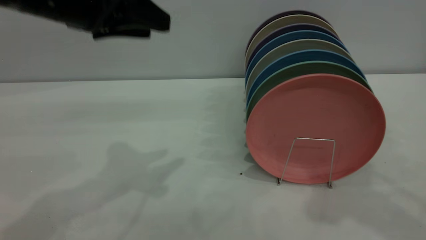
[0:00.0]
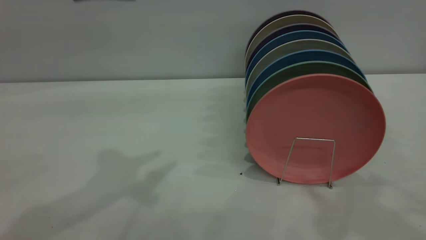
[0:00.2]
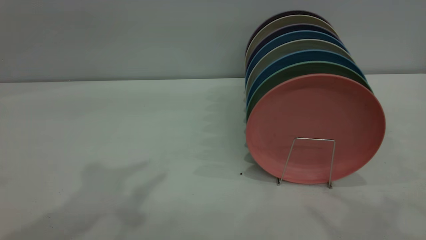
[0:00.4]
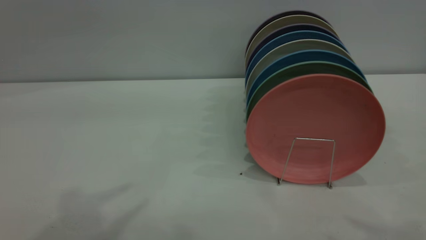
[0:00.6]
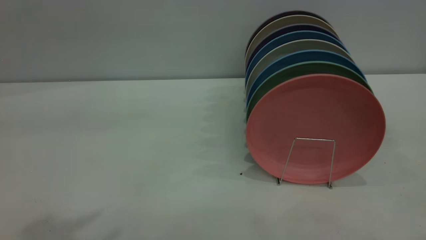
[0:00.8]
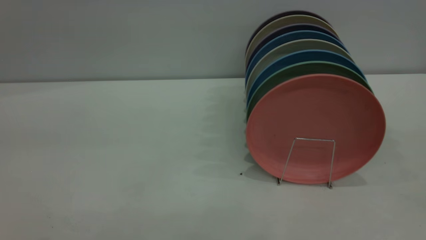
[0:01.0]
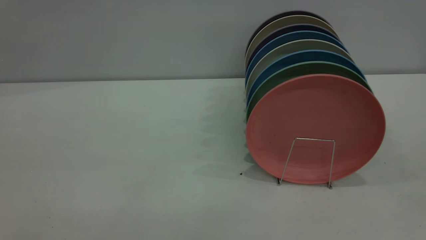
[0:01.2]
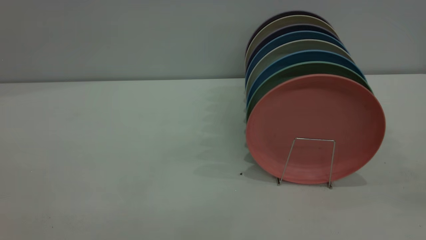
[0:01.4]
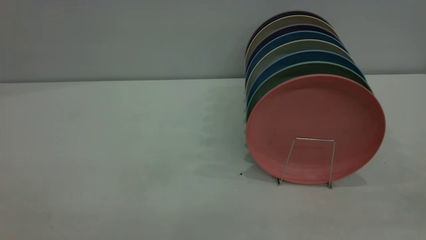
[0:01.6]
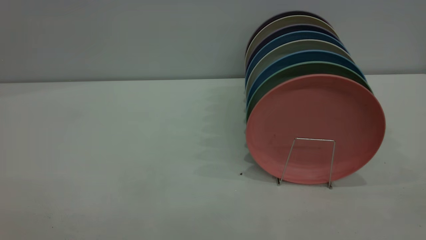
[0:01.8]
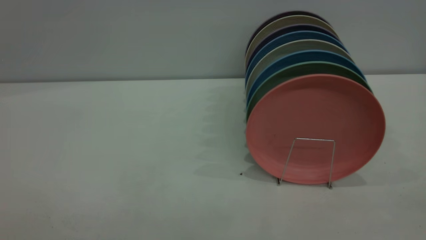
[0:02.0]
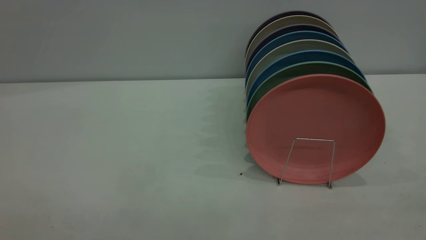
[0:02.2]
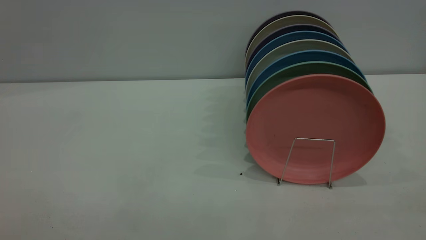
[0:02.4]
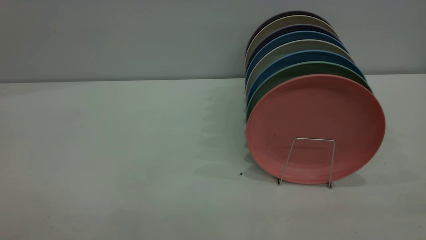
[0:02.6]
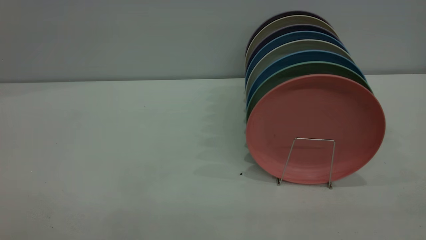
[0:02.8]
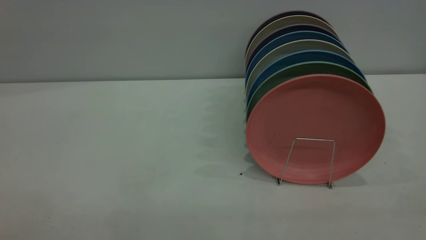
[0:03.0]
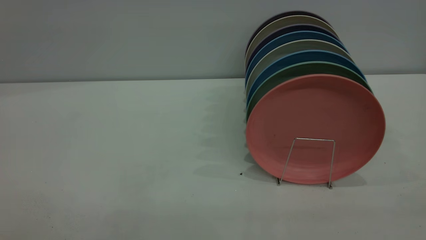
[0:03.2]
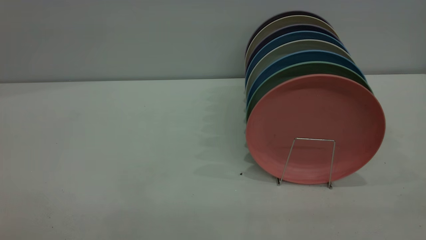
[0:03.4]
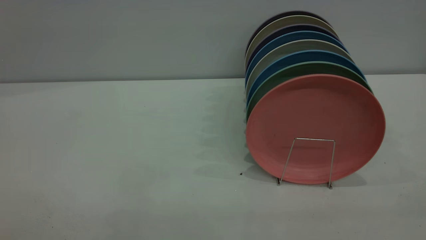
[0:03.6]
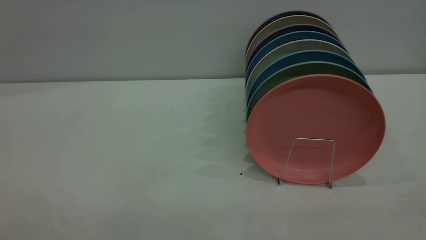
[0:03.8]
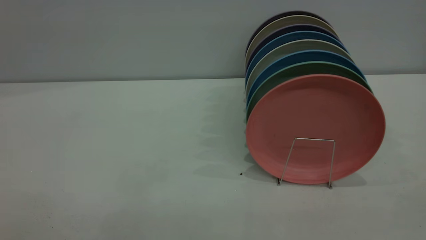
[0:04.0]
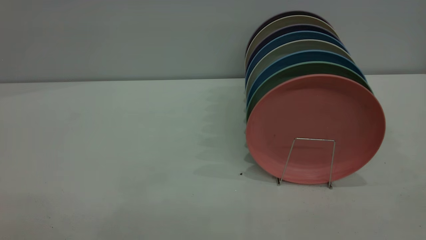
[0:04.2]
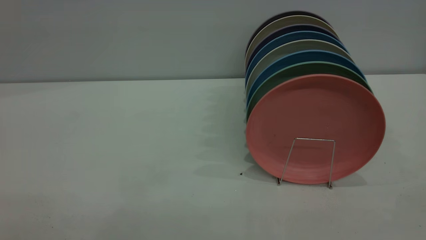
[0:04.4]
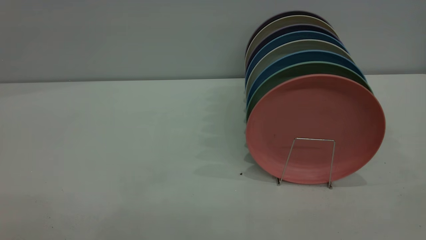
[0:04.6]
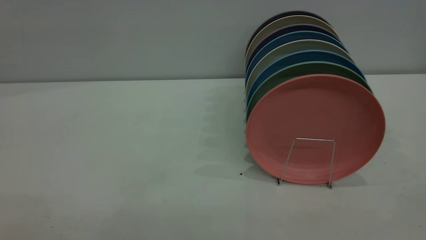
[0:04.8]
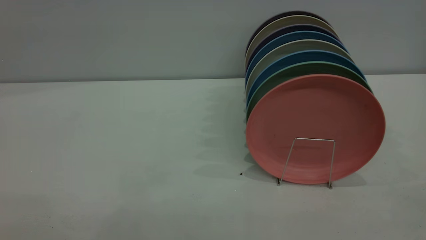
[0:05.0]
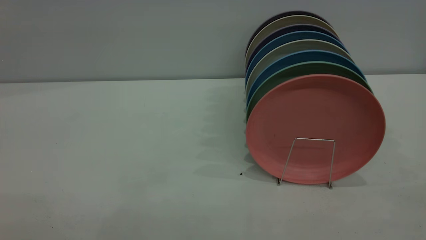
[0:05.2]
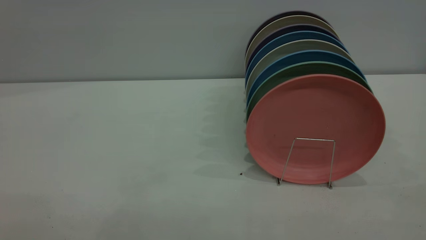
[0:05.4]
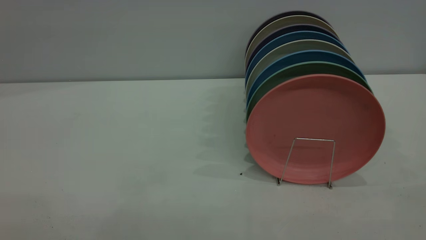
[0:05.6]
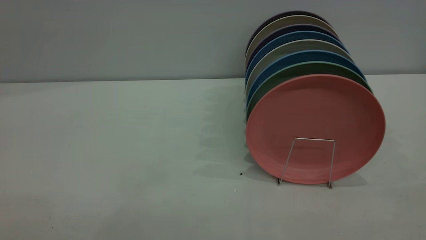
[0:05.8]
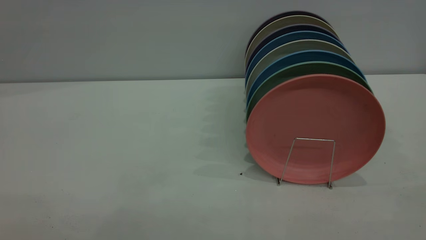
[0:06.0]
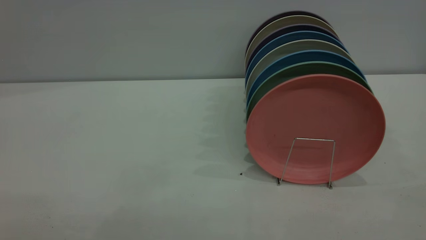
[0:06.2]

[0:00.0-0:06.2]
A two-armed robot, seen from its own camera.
Task of the whole recording: put the plate on the plate rack.
0:00.0 to 0:01.6: The grippers both shift backward by roughly 30 cm. The right gripper closes.
